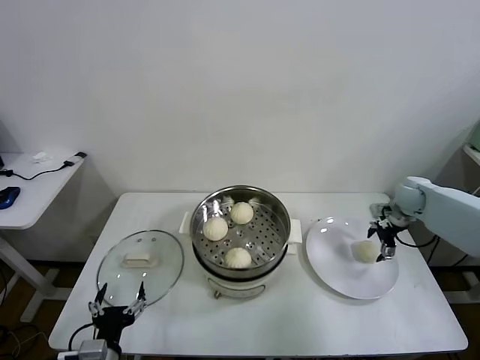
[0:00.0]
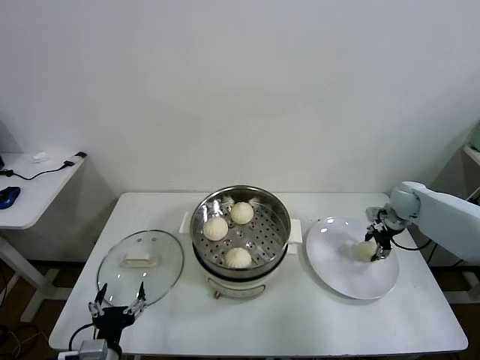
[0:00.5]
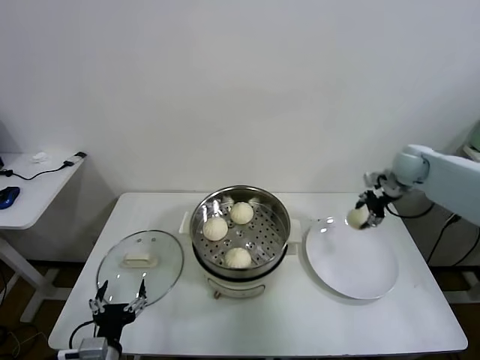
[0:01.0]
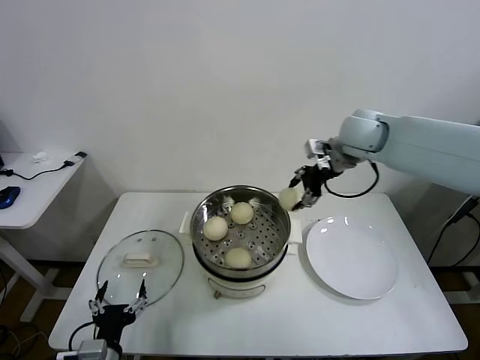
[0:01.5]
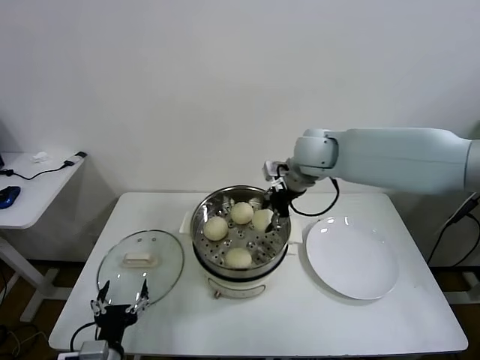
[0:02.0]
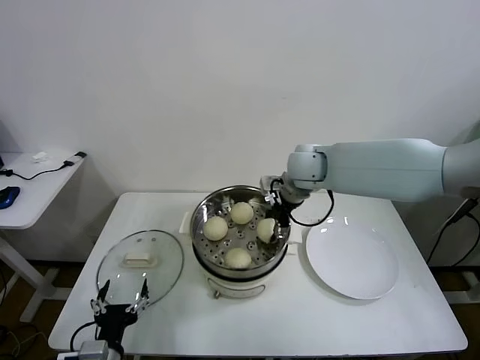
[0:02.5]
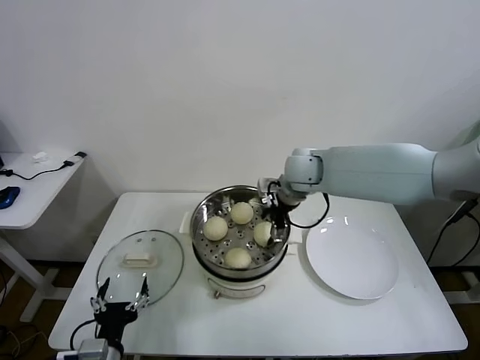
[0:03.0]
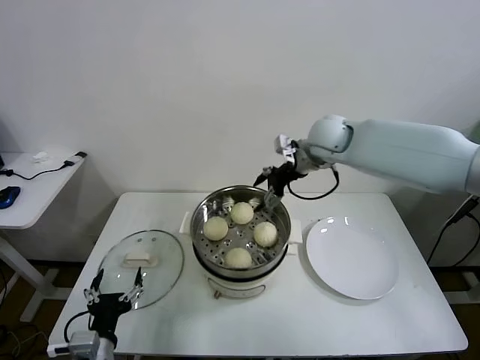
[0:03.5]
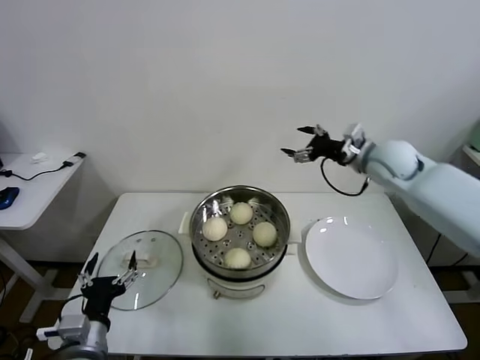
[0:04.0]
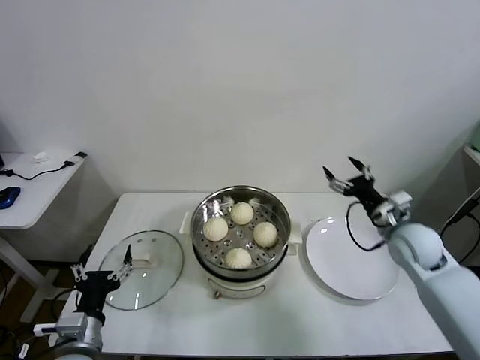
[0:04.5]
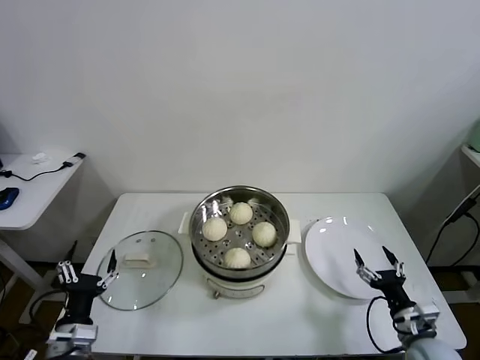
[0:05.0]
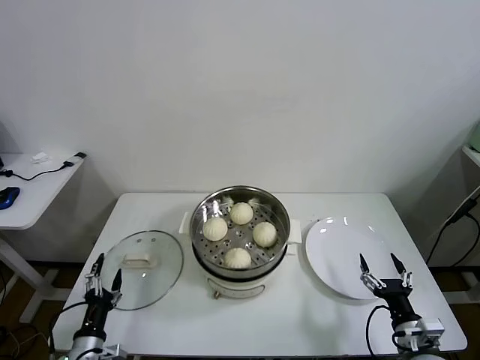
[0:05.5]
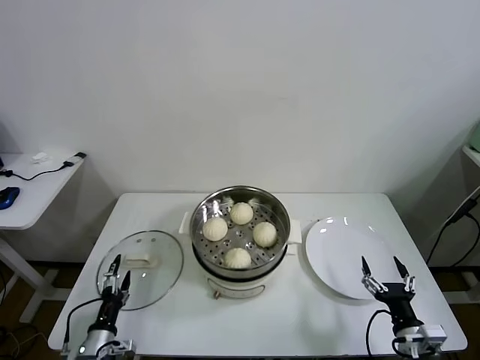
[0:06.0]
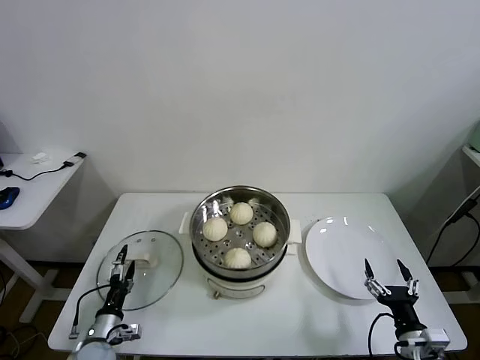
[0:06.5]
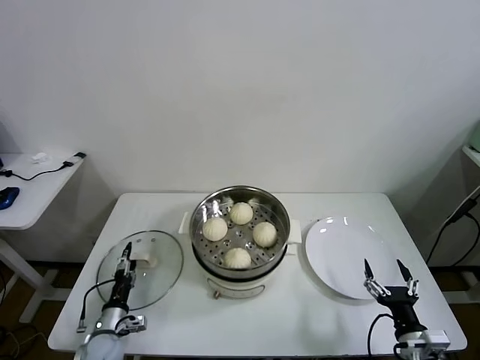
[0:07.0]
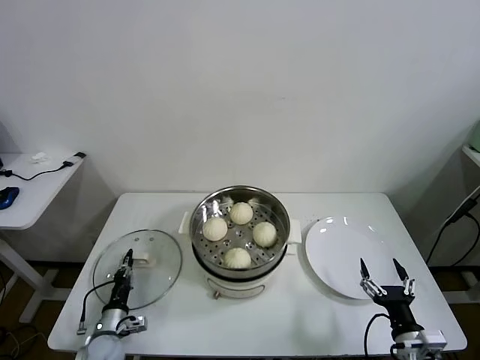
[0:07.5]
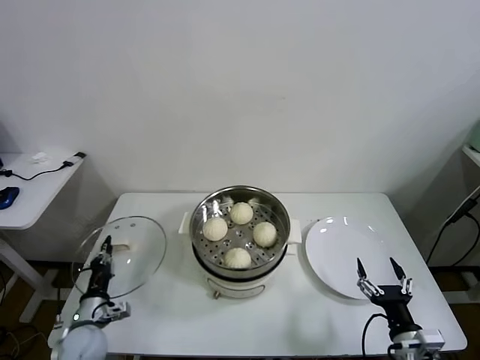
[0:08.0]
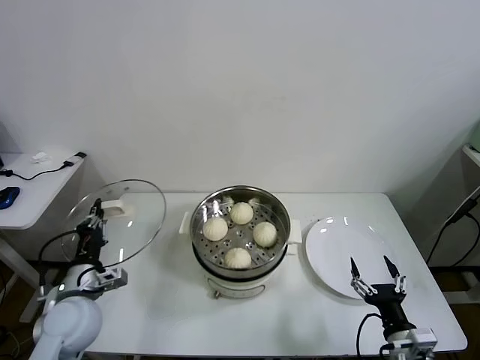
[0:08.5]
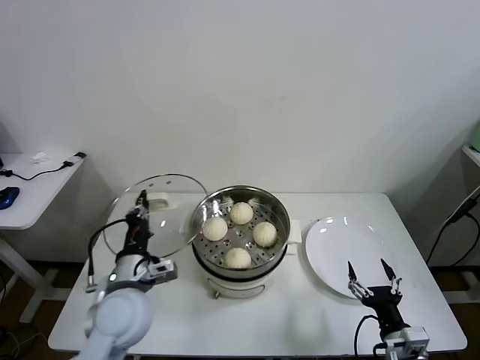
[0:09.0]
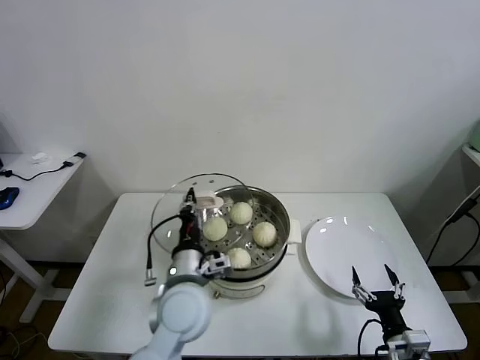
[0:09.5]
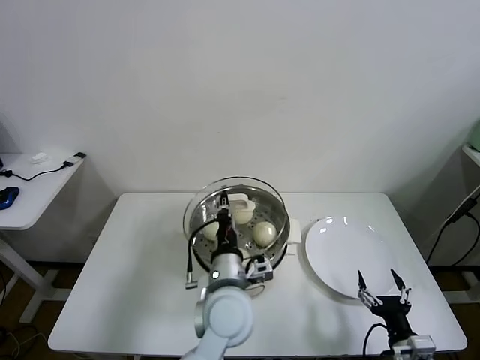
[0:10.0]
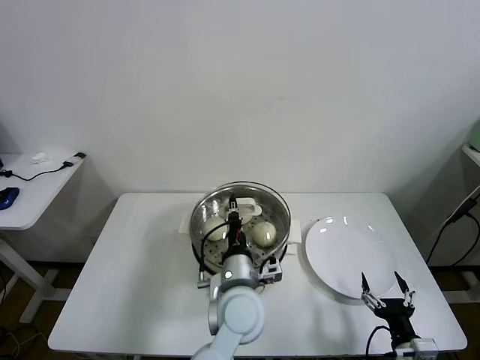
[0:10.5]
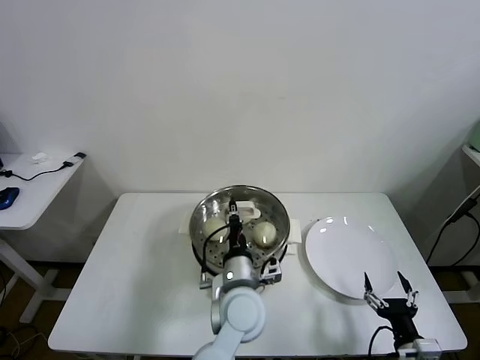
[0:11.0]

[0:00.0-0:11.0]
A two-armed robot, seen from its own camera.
Task of the whole recording: take steamed baozi put them in steamer.
Step, 0:00.5 to 0:03.0: Place the baozi on the steamer with right gripper.
Step, 0:03.5 to 0:07.5: Grasp the pot lid with left gripper.
0:00.0 to 0:02.0: The right gripper shifts about 35 cm to the left and upward, and closes.
0:02.0 to 0:03.5: The right gripper moves roughly 5 cm, and opens.
0:03.5 to 0:05.5: The left gripper goes roughly 10 cm downward and to the left. Meanwhile the right gripper moves backward, downward and to the right, approximately 50 cm.
0:05.5 to 0:07.5: The left gripper shifts approximately 15 cm downward and forward, and closes.
0:07.5 to 0:09.0: The left gripper shifts some 30 cm upward and to the right.
0:09.0 to 0:11.0: The left gripper moves to the right, approximately 20 cm.

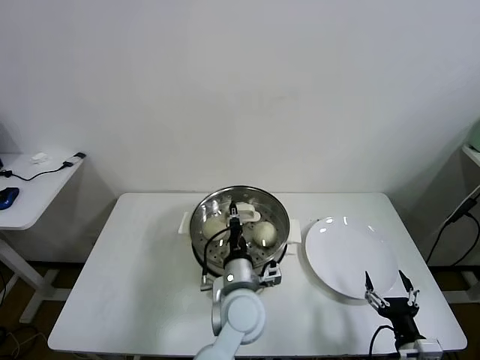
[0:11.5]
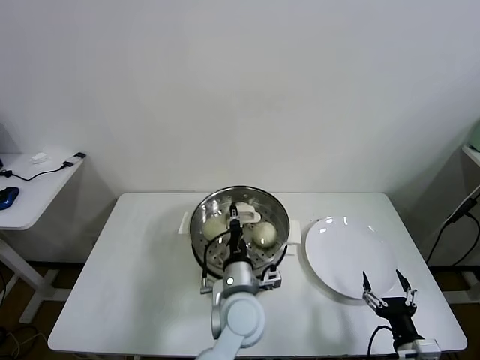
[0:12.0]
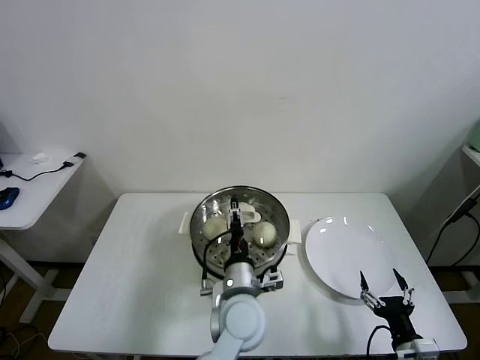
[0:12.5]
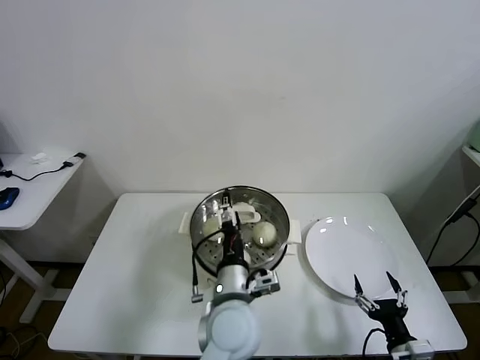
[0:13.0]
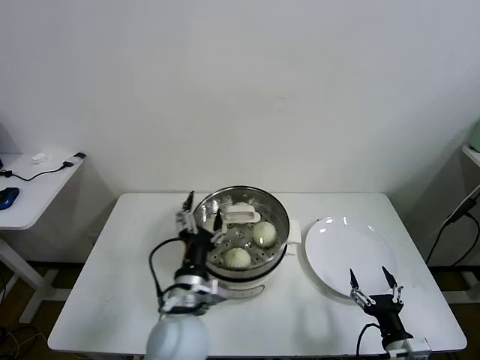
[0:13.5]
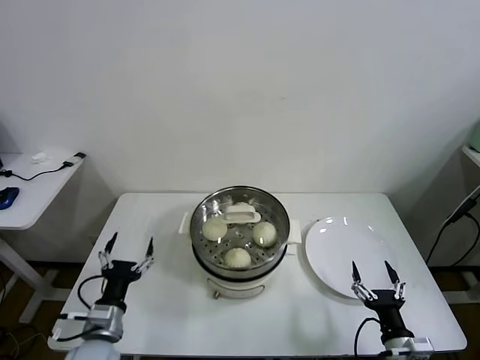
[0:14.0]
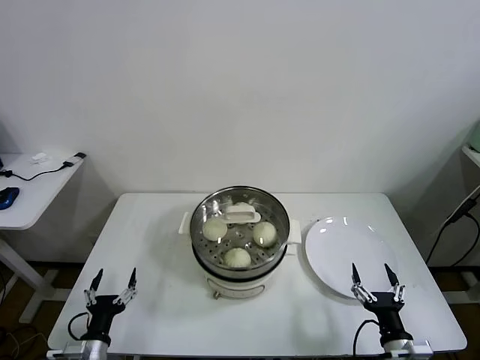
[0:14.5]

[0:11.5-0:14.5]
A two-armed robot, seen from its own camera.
Task of the whole recording: take steamed baozi put them in steamer.
0:11.5 to 0:13.0: The left gripper opens its fingers.
0:13.0 to 0:14.5: The left gripper is displaced to the left and downward by some 35 cm.
